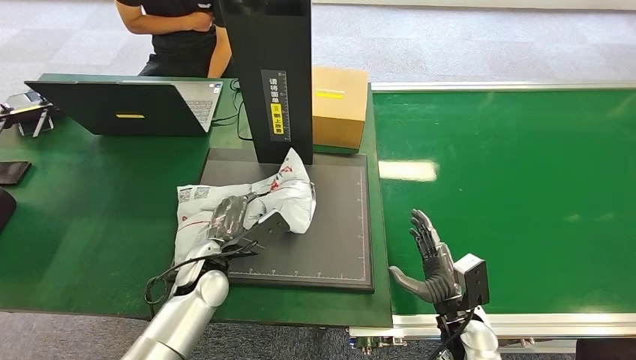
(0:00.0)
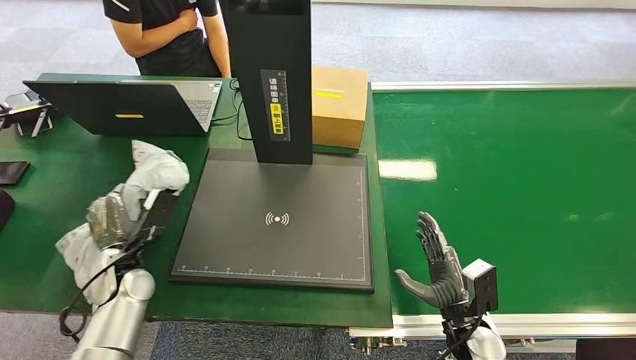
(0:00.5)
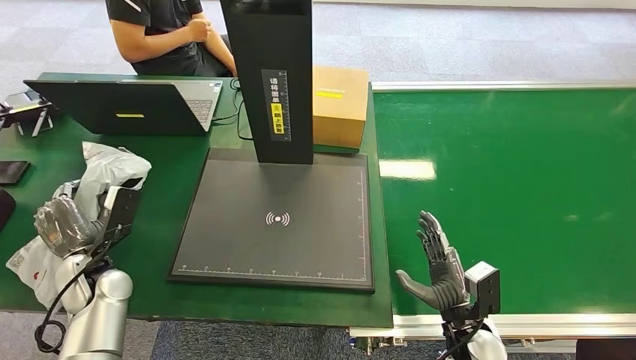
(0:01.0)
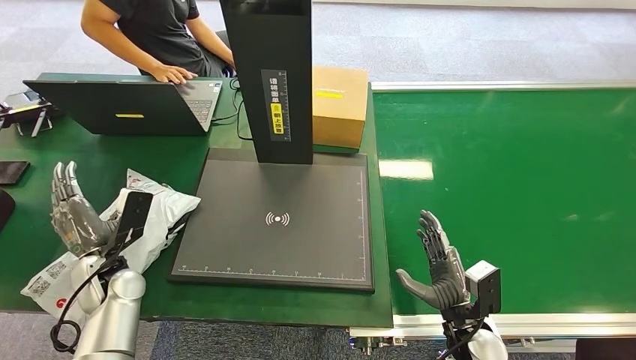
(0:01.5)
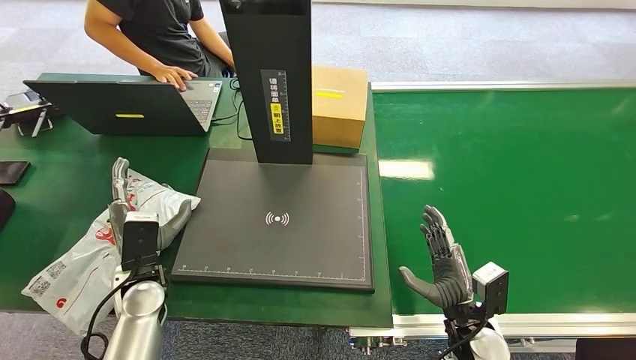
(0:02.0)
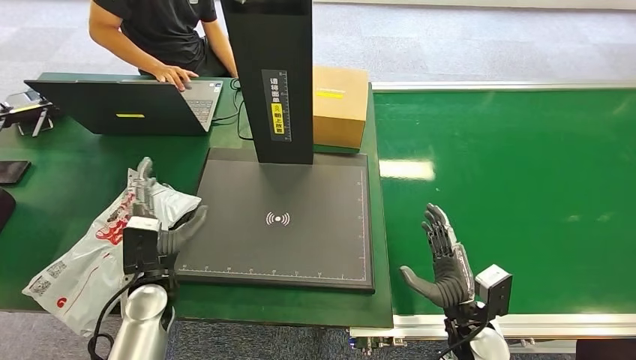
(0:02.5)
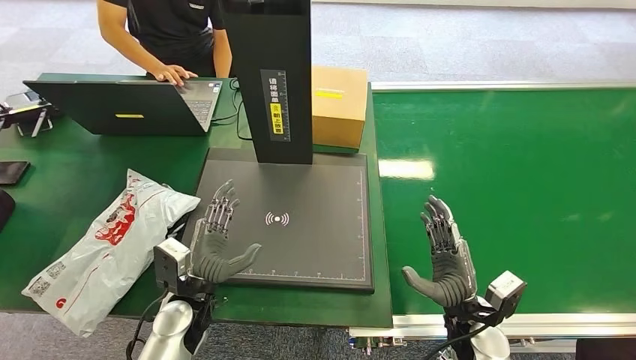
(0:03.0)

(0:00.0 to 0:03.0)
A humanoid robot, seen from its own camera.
Step, 0:01.0 - 0:03.0: Place the package into the parcel locker.
0:01.5 - 0:03.0: The left hand goes approximately 15 cm to the right.
